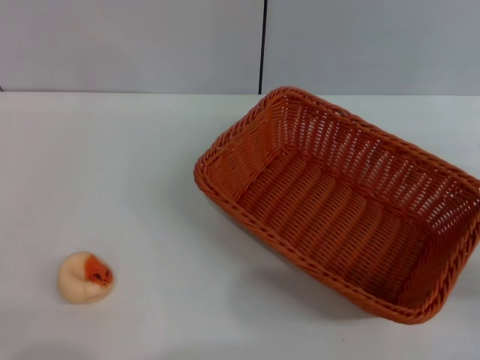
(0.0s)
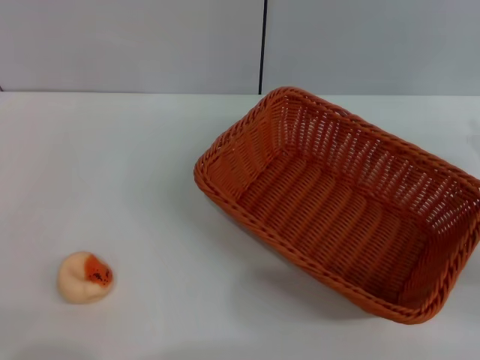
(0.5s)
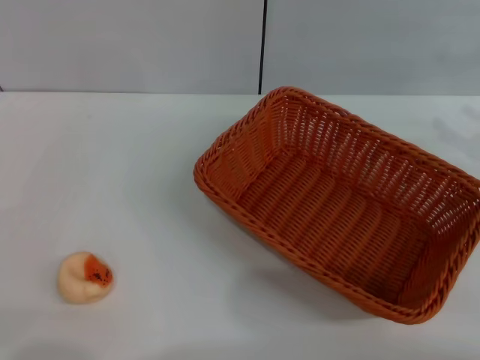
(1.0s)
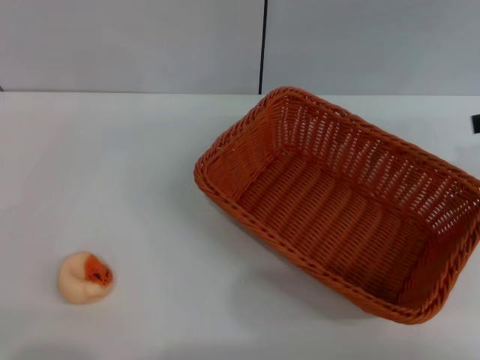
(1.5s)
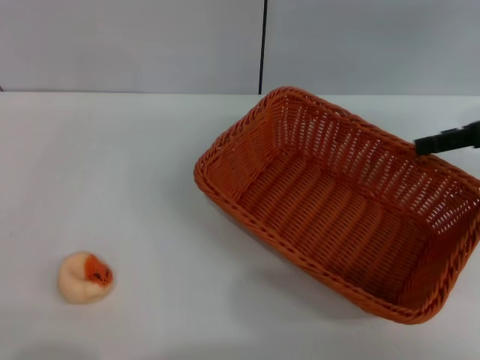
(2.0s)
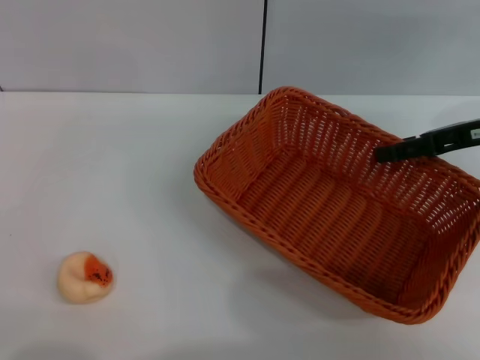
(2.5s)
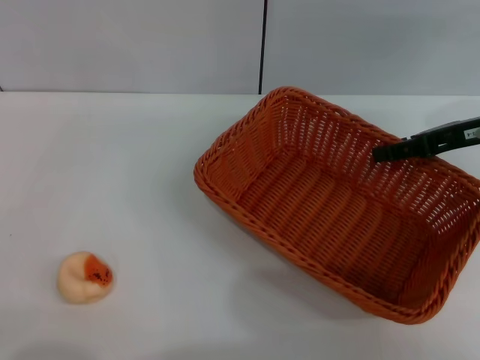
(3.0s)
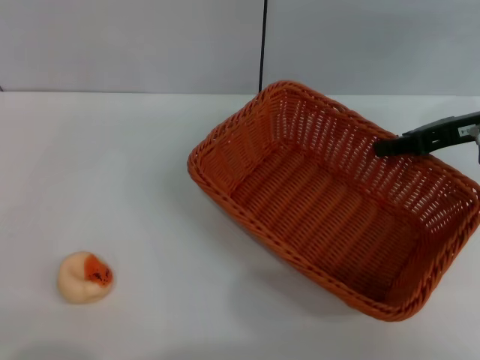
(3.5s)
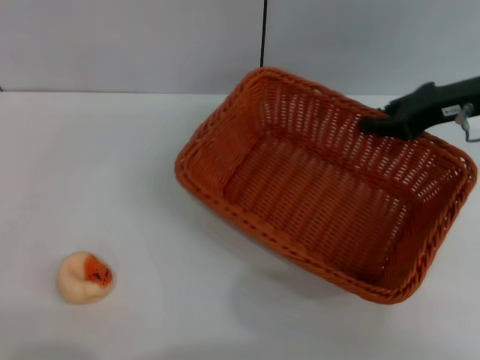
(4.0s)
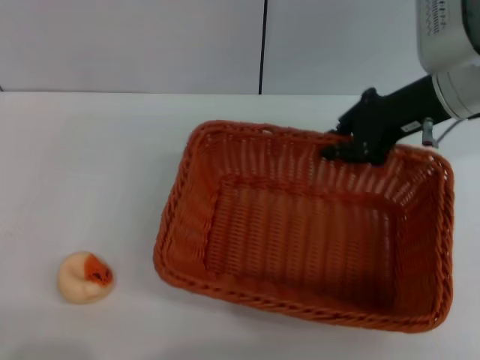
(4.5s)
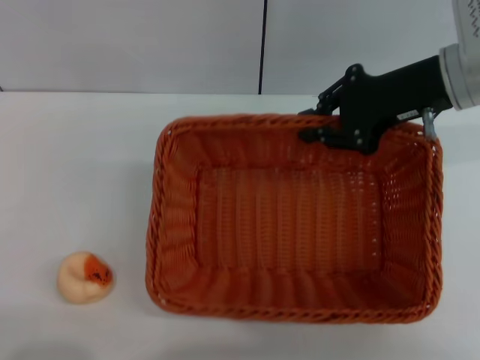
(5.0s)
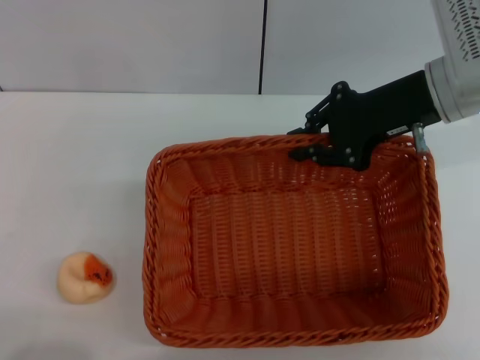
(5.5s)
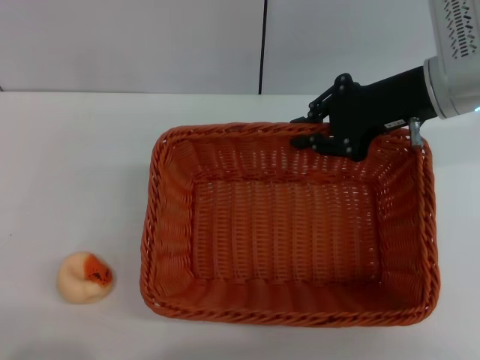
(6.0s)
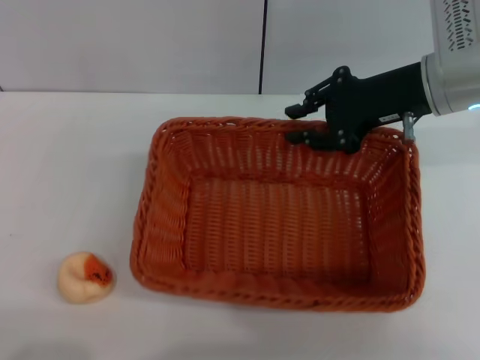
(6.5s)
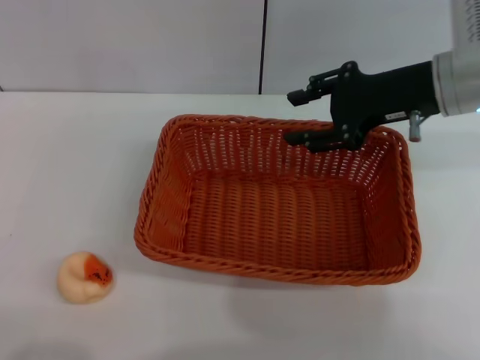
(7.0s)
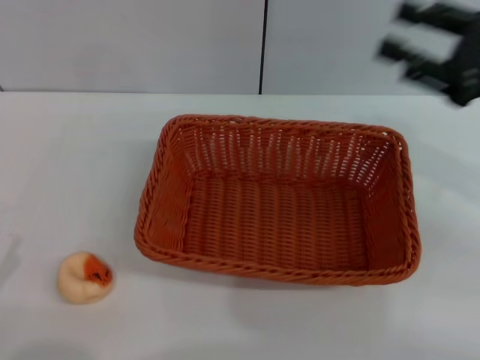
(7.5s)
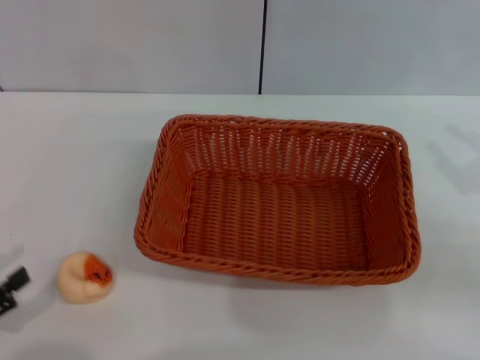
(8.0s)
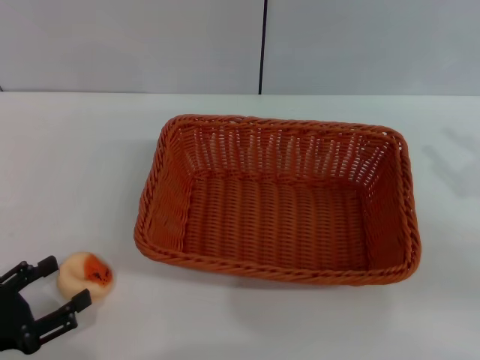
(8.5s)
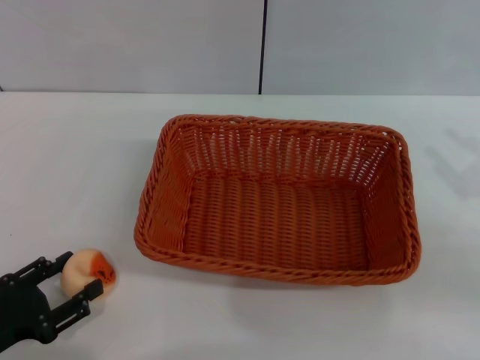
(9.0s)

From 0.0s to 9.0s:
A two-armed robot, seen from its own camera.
Step, from 0.0s to 6.5s: Move the basket to the center of view with the right gripper.
From 0.0s to 2.0s: The right gripper shifts about 15 cm forward and upward.
From 2.0s to 4.5s: The right gripper travels to the left by about 10 cm, and closes up.
From 4.5s to 7.0s: The right gripper opens.
From 7.0s to 9.0s: The left gripper is displaced forward by some 5 cm, while the right gripper goes approximately 20 cm backward and to the right.

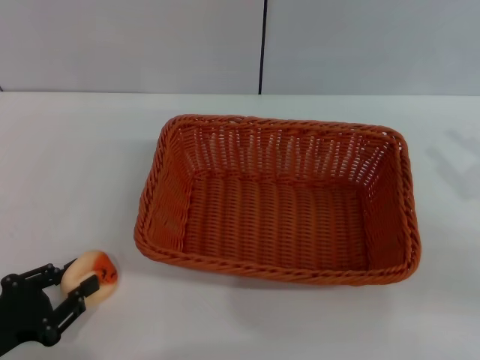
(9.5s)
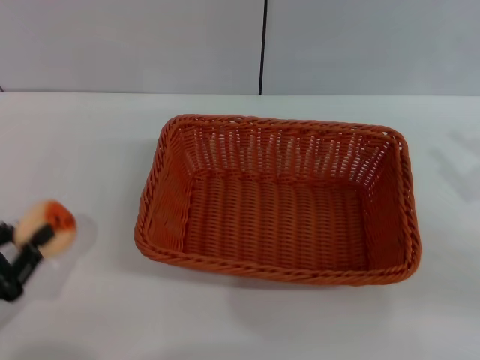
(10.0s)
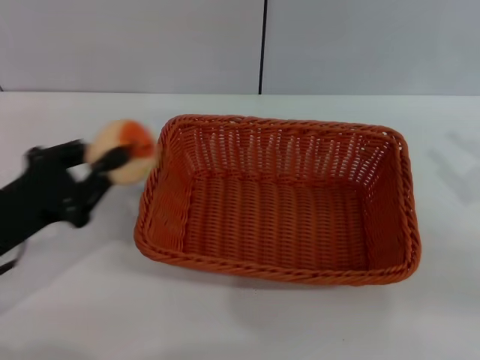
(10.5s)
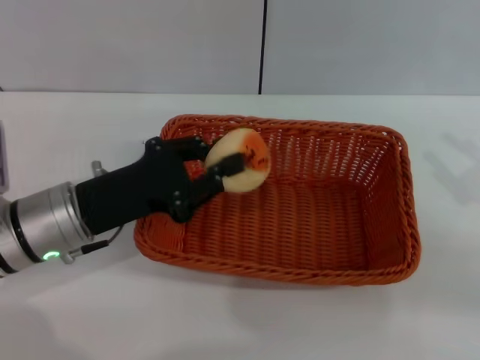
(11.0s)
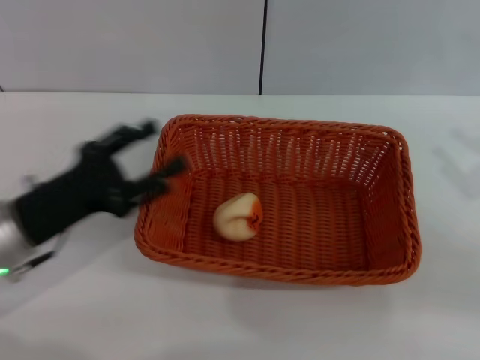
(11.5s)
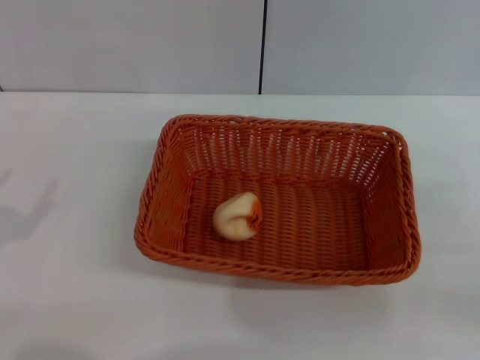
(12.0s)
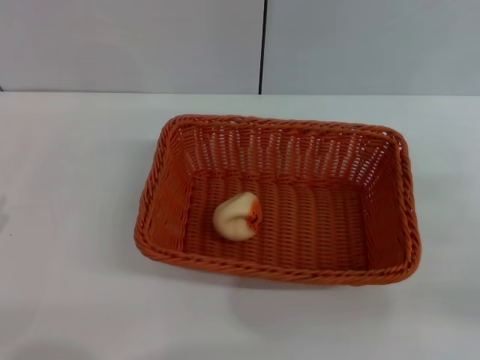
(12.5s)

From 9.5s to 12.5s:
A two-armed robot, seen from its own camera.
Step, from 10.5s to 11.0s: Place the egg yolk pastry into the basket with the left gripper.
From 9.5s to 11.0s: The left gripper is displaced forward, to the right and upward by some 20 cm, and closes its fingers.
From 11.0s to 12.5s: The left gripper is displaced to the left and backward by some 20 cm, and opens its fingers.

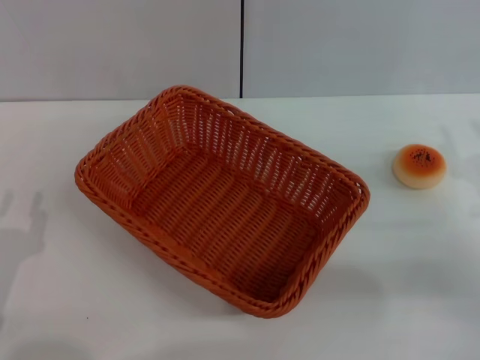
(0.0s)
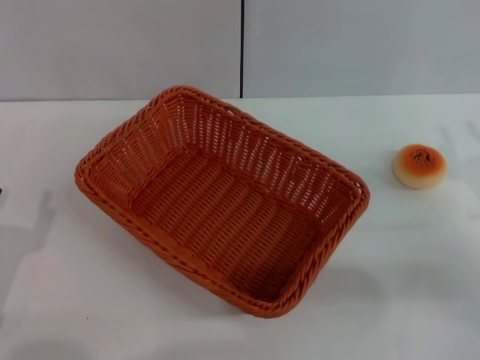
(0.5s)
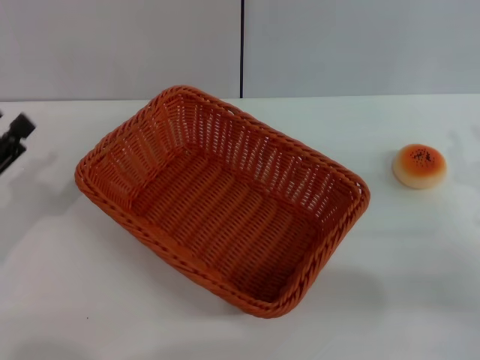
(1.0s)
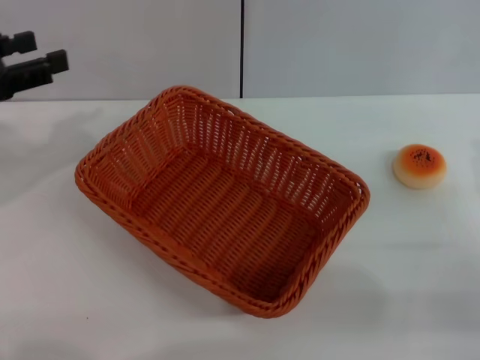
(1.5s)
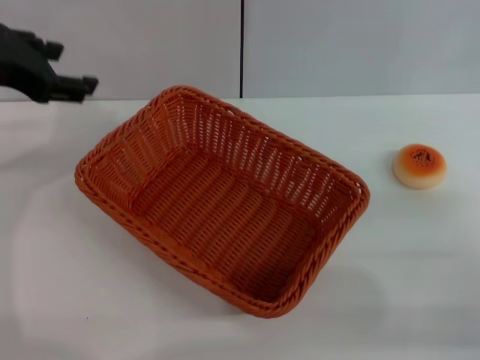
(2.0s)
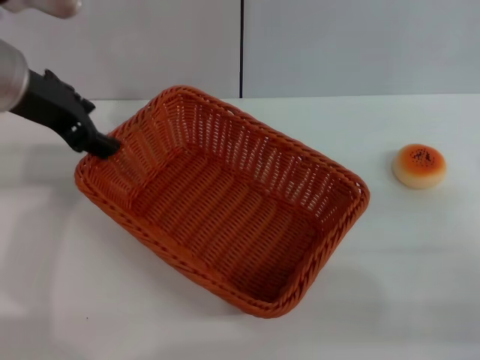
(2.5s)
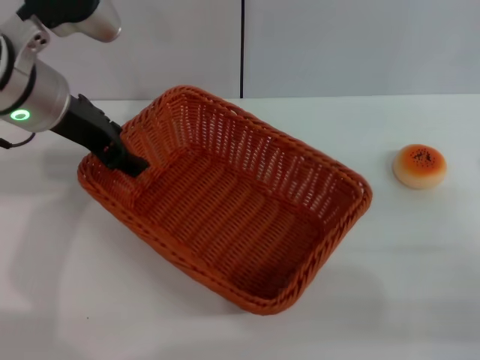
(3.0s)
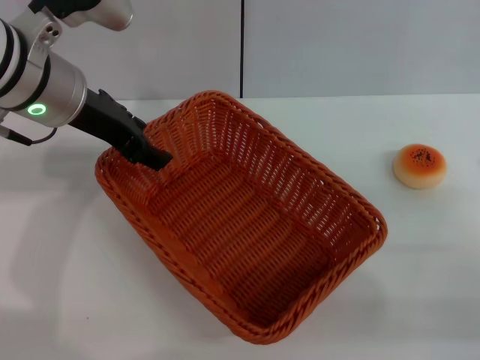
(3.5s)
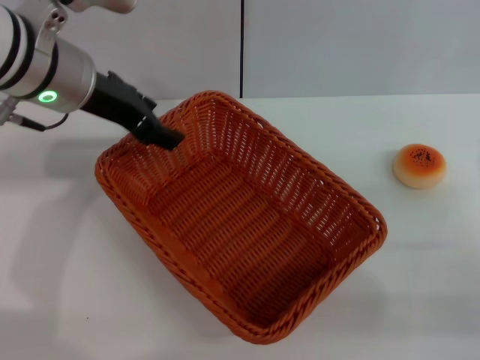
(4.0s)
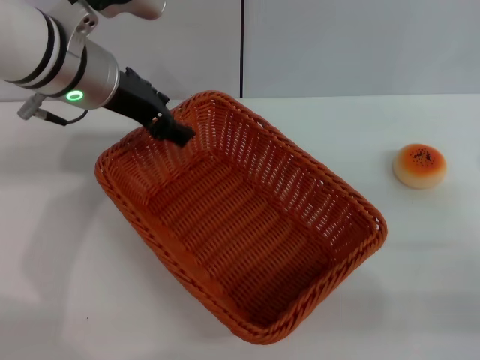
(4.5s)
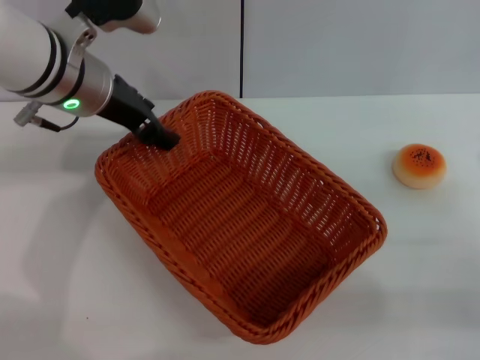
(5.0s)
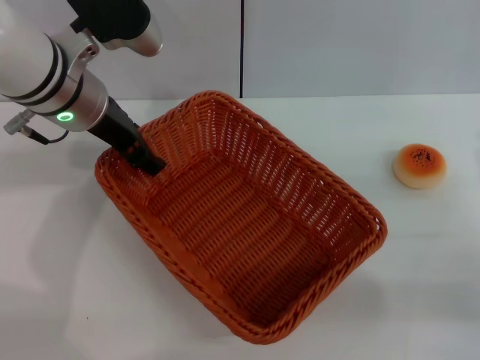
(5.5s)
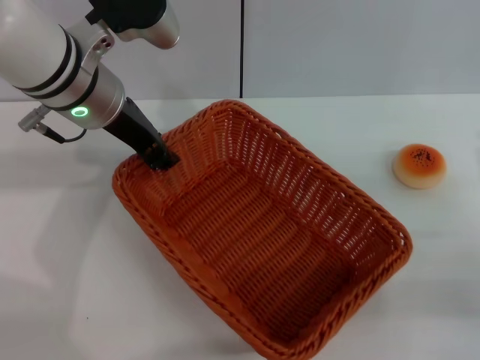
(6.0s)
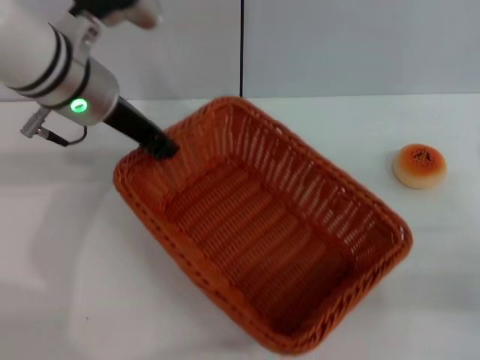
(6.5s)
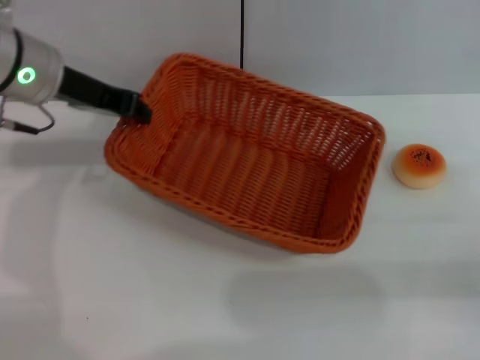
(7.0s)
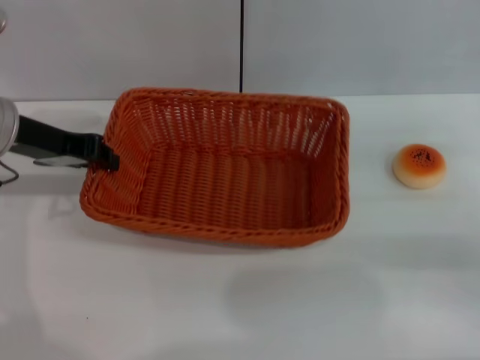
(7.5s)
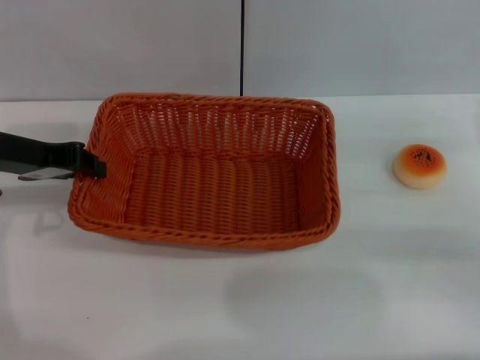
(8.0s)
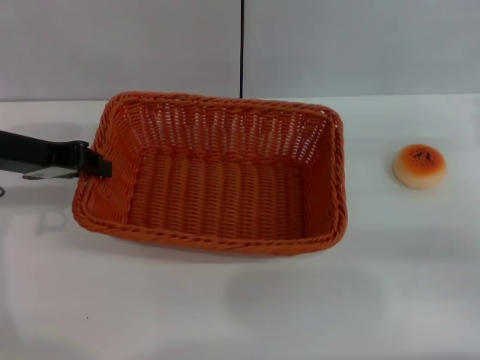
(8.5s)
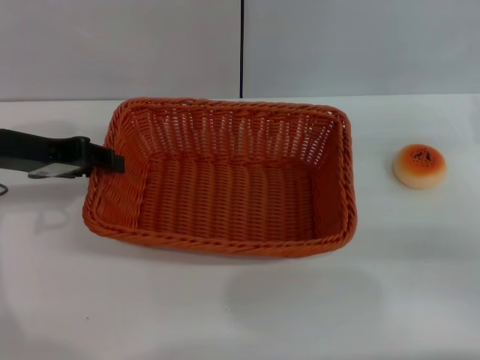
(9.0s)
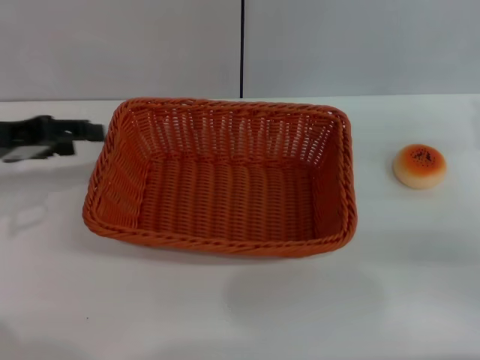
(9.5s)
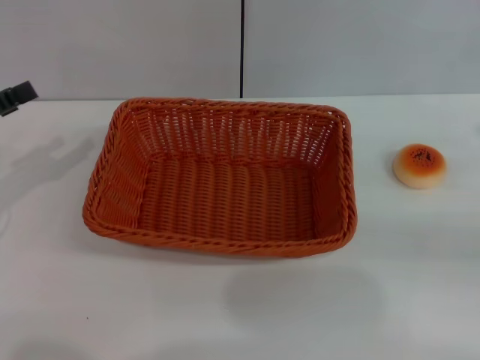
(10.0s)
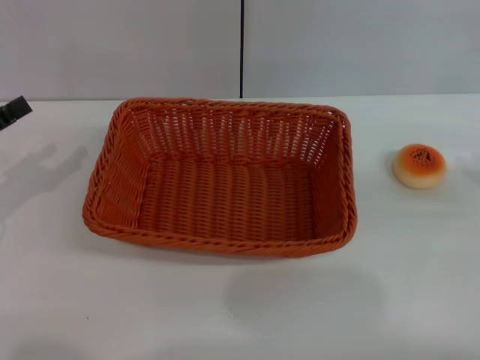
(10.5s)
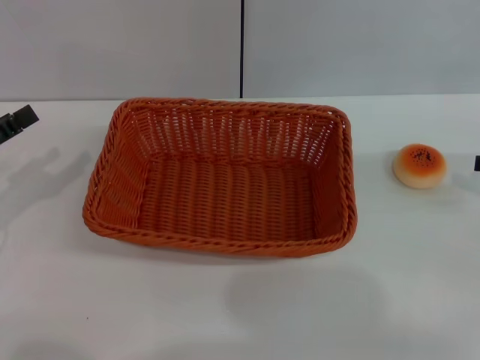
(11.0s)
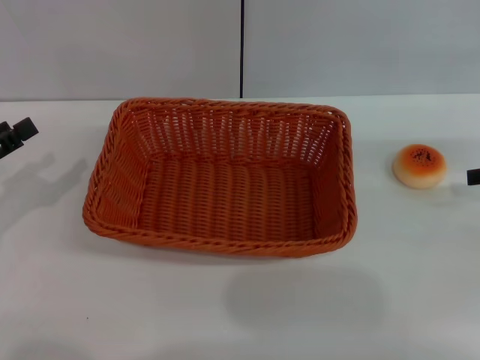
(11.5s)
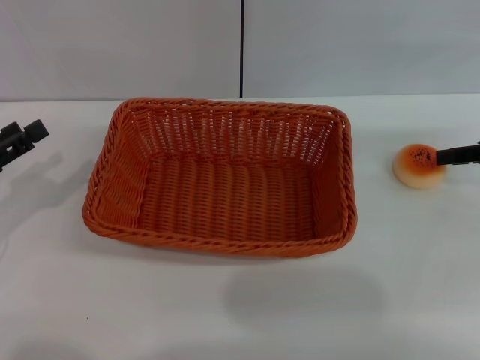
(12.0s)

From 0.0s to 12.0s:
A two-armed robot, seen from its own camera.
Step, from 0.0s to 9.5s: Move the basket to the center of view with the left gripper.
From 0.0s to 2.0s: The left gripper shifts about 30 cm upward and forward, and opens its fingers.
From 2.0s to 4.0s: The left gripper moves to the right, some 10 cm.
From 4.0s to 6.0s: The left gripper closes up.
From 6.0s to 8.0s: The right gripper goes roughly 5 cm forward, while the left gripper moves to the left, about 10 cm, and closes.
From 8.0s to 10.0s: The left gripper travels to the left by some 10 cm, and opens its fingers. The right gripper shifts some 5 cm to the right.
From 10.0s to 12.0s: The right gripper heads forward, covering about 10 cm, while the left gripper shifts by approximately 5 cm.

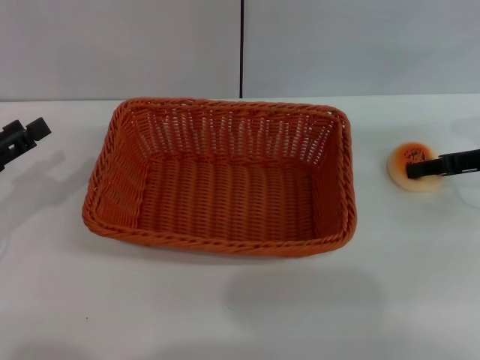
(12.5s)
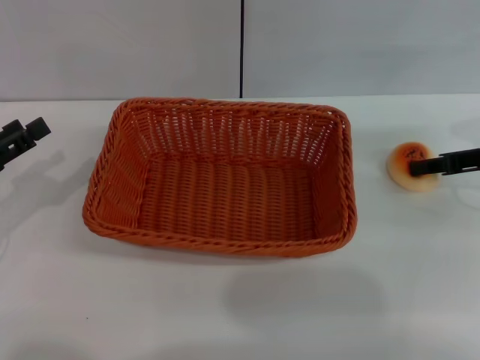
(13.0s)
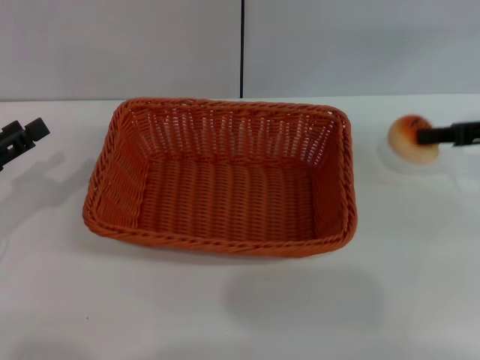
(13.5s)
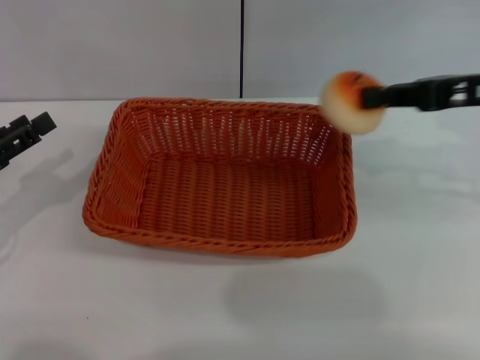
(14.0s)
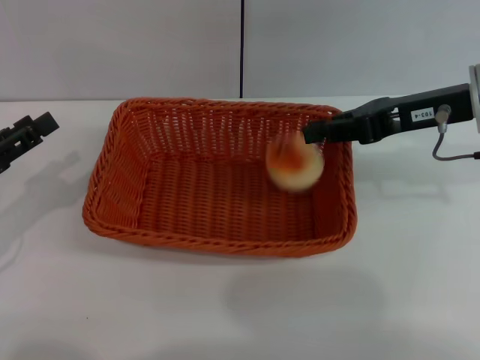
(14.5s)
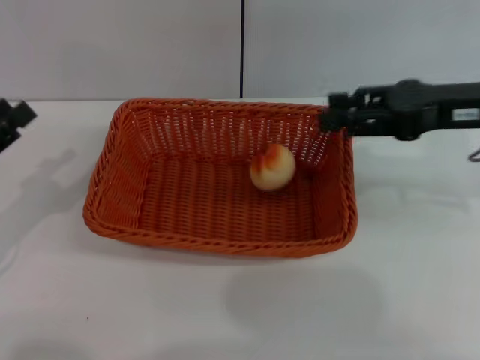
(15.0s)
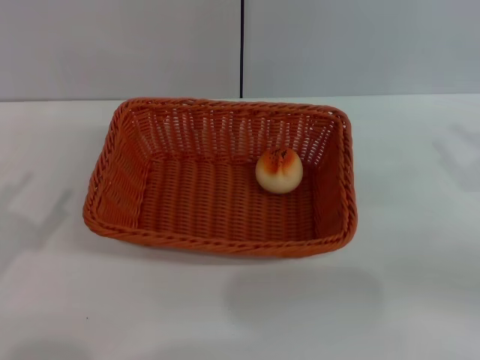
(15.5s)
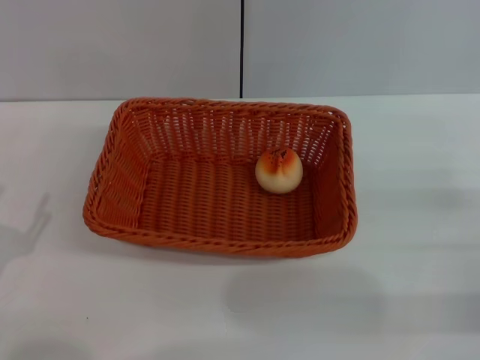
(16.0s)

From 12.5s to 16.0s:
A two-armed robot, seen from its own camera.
Step, from 14.0s to 14.5s: Place the egg yolk pastry into the basket with the right gripper.
From 12.5s to 14.5s: The right gripper heads to the left and upward, covering about 15 cm, and closes.
From 14.5s to 16.0s: The left gripper moves backward and downward, some 10 cm; the right gripper heads backward, downward and to the right, covering roughly 25 cm, and opens up.
